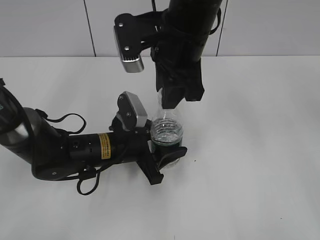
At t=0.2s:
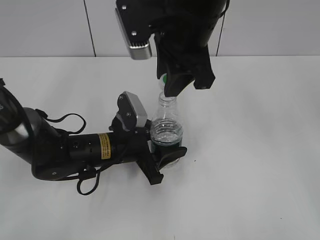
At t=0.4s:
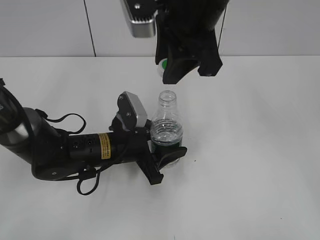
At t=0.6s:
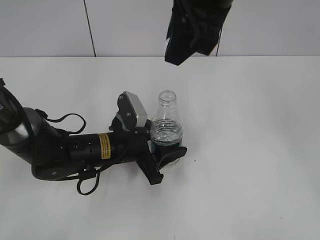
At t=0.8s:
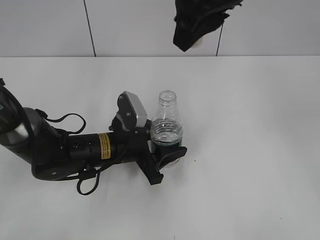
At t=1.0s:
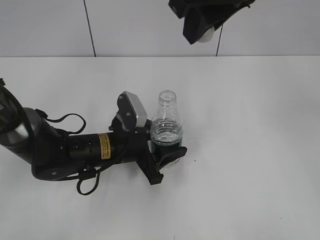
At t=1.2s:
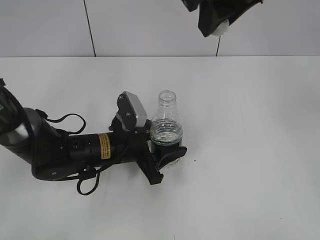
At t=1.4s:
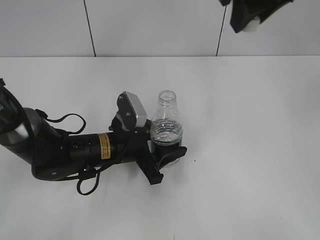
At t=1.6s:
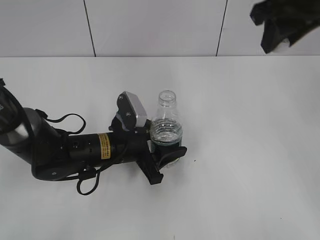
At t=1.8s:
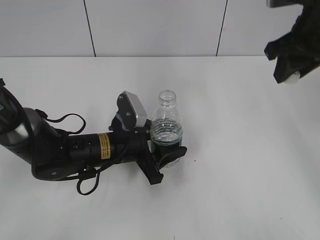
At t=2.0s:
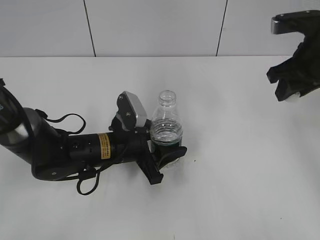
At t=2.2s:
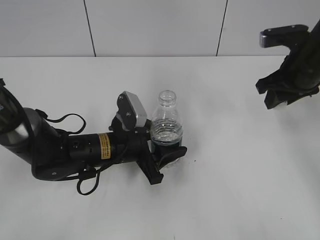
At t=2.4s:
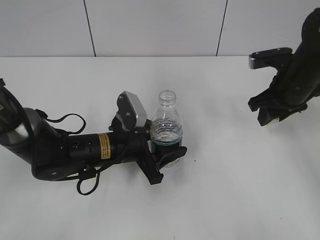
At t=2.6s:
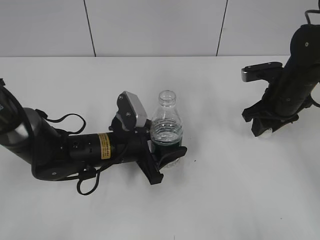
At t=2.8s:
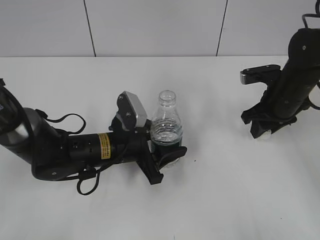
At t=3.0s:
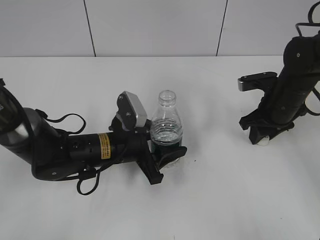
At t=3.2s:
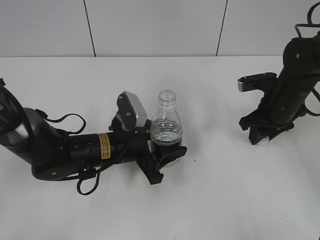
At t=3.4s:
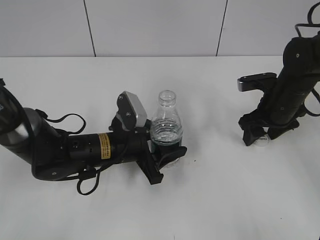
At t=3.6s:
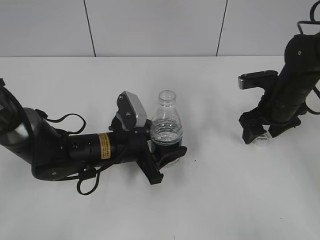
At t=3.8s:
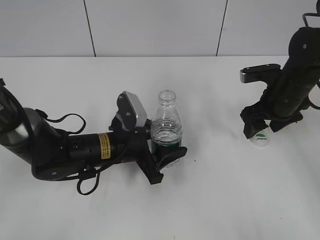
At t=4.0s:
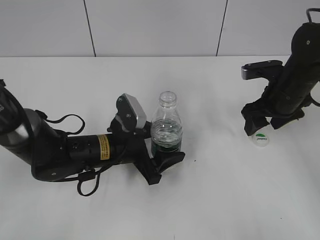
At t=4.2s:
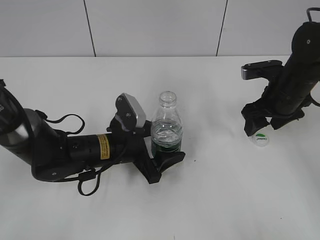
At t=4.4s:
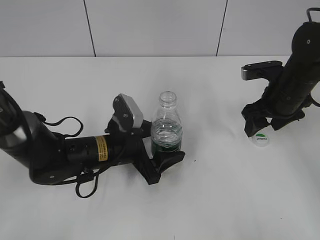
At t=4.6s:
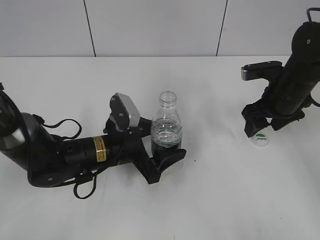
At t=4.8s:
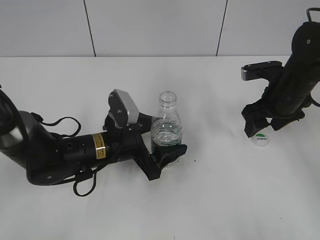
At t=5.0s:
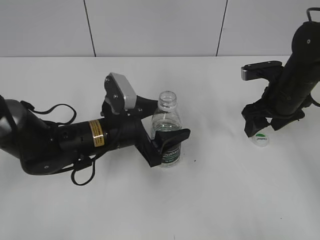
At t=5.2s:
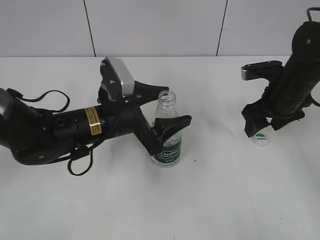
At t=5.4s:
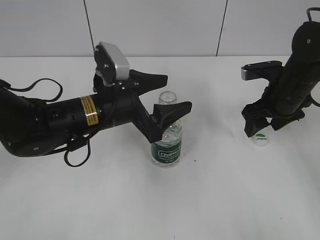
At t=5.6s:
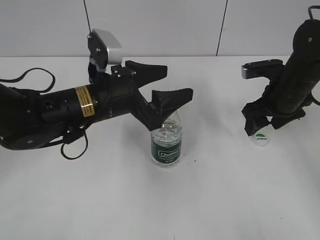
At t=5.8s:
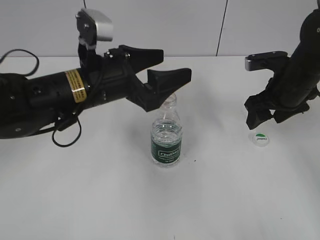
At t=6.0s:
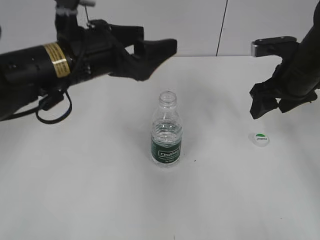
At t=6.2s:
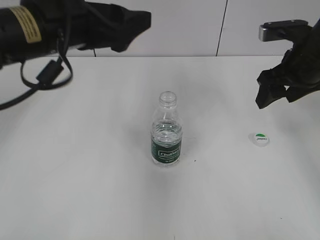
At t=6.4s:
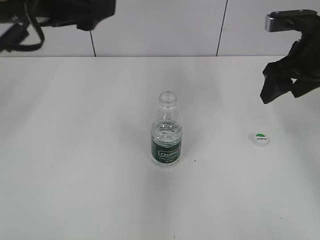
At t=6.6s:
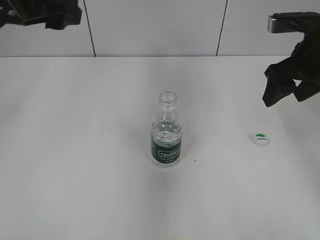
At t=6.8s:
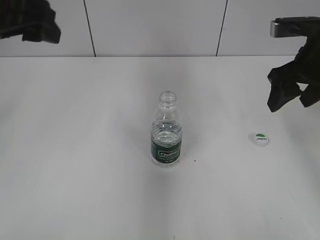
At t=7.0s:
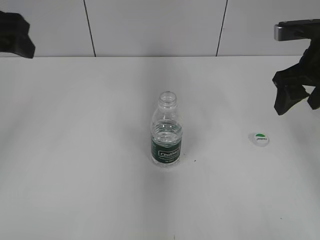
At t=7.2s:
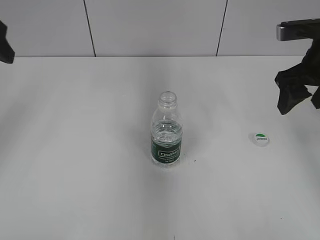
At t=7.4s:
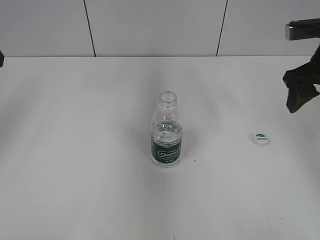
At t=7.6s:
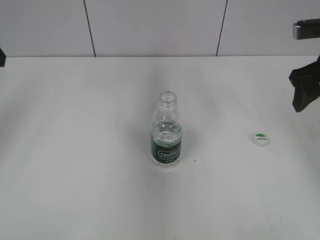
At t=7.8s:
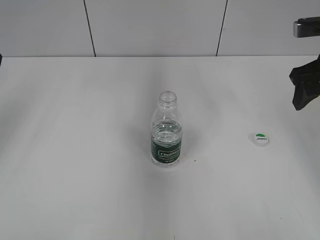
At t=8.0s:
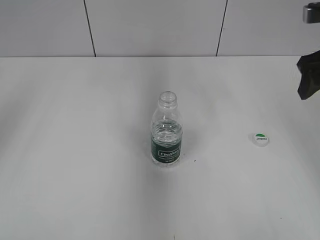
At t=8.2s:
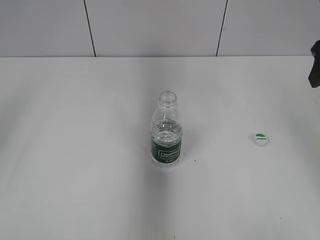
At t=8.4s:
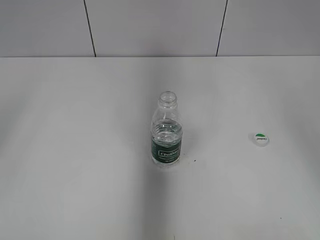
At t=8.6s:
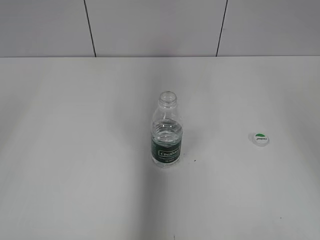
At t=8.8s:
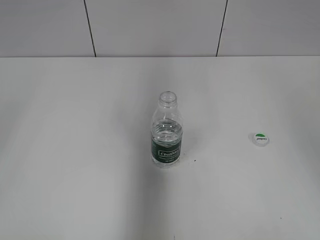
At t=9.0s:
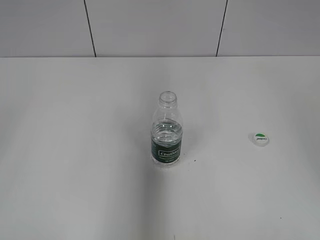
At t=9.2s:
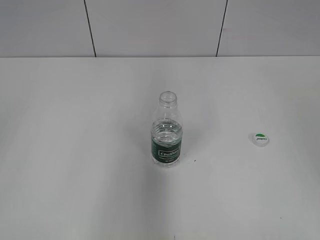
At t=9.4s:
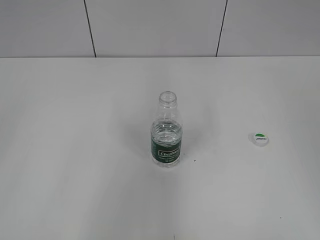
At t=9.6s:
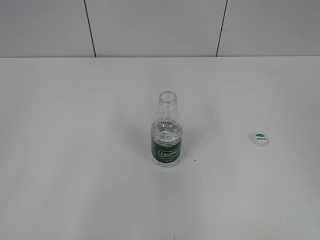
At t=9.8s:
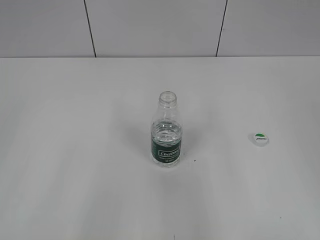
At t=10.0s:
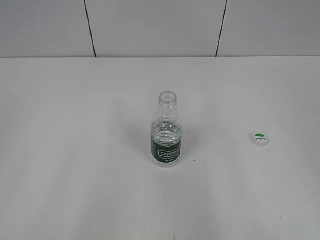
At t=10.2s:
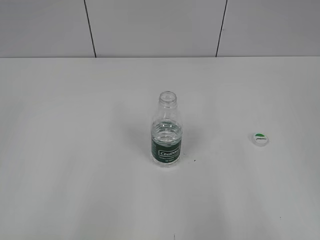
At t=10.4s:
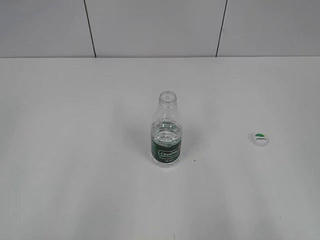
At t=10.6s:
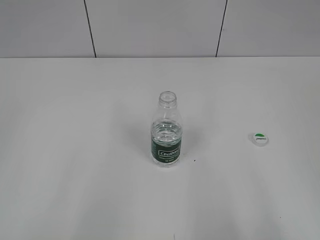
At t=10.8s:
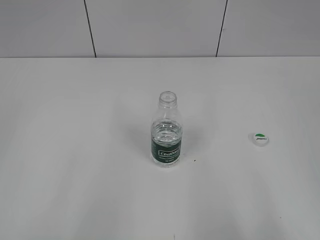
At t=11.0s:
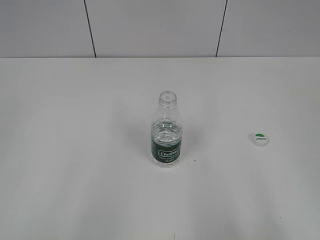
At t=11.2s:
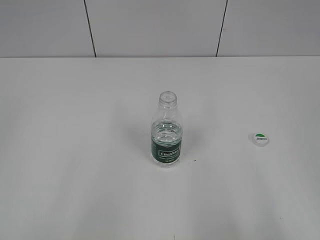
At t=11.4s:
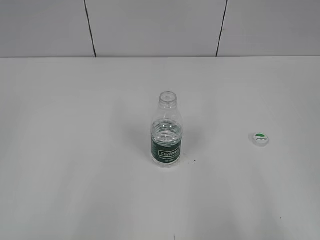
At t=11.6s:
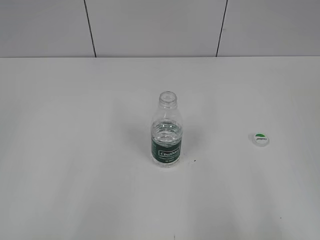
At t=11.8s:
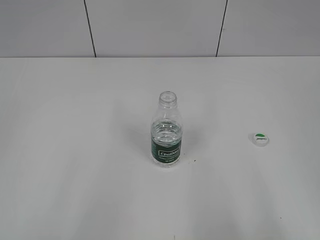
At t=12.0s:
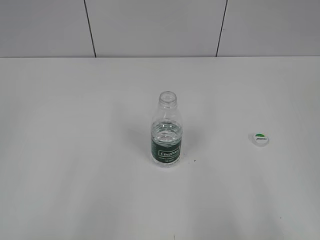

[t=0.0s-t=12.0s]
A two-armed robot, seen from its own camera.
Step, t=0.6s to t=3.8s: Place the bottle cap on the table with the right gripper.
Step, t=4.2s to t=5.2s: Place the bottle on the table with the left gripper.
t=0.0s to t=1.6s: The right gripper is displaced to the right and upward by approximately 15 cm.
t=1.6s to t=3.0s: The right gripper moves downward, some 25 cm.
t=3.0s to t=4.4s: The left gripper opens up; the right gripper opens up.
t=4.4s to t=6.0s: The right gripper is displaced upward by about 5 cm. The left gripper heads upward, covering some 20 cm.
t=6.0s to t=7.6s: The right gripper heads upward, covering roughly 5 cm; the left gripper goes approximately 20 cm to the left.
t=7.6s to t=9.0s: The left gripper goes roughly 25 cm backward; the right gripper moves upward and backward, about 20 cm.
t=9.0s to t=10.4s: The left gripper heads downward, covering roughly 10 cm, and closes up; the right gripper shifts some 20 cm backward.

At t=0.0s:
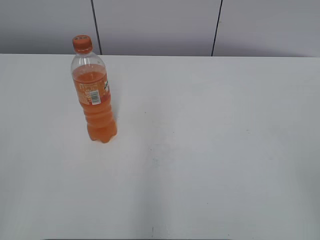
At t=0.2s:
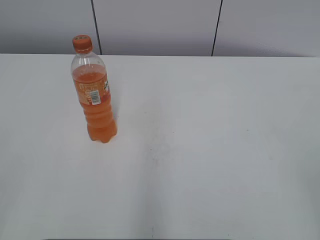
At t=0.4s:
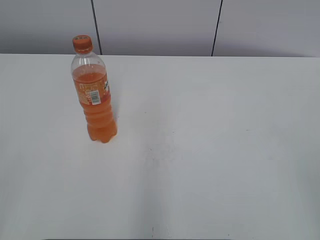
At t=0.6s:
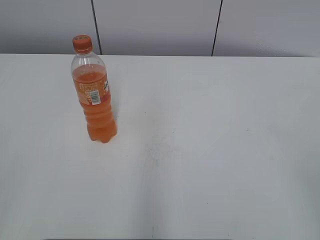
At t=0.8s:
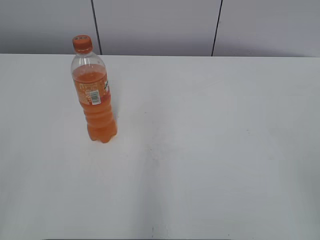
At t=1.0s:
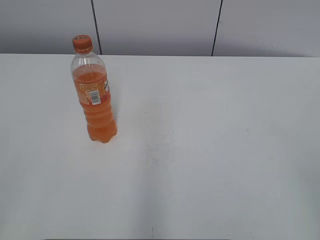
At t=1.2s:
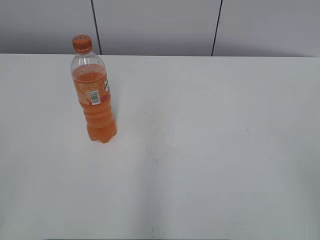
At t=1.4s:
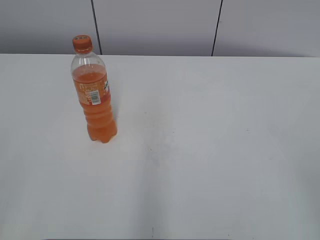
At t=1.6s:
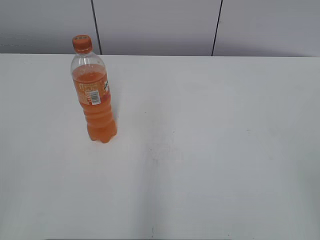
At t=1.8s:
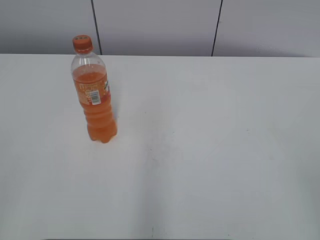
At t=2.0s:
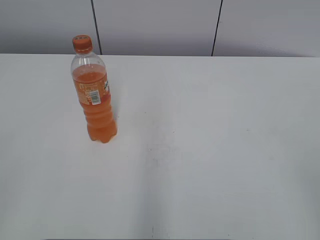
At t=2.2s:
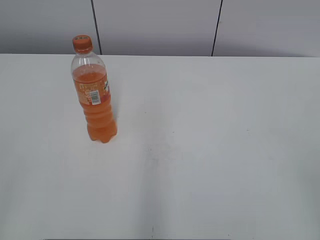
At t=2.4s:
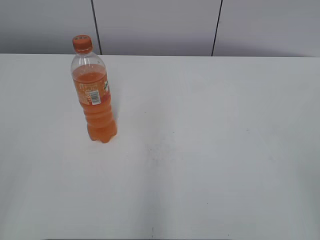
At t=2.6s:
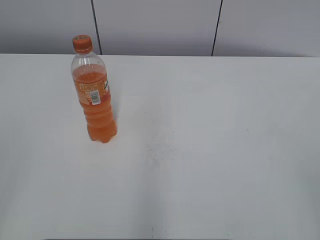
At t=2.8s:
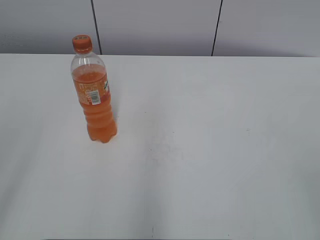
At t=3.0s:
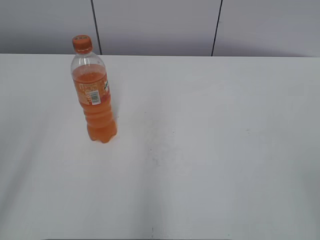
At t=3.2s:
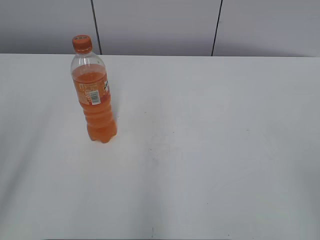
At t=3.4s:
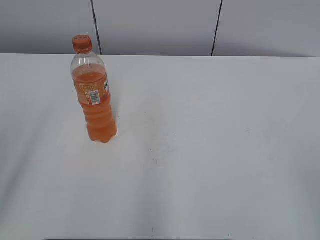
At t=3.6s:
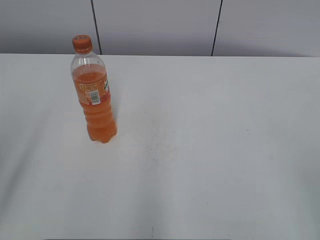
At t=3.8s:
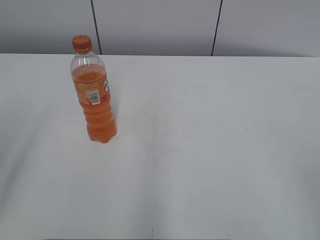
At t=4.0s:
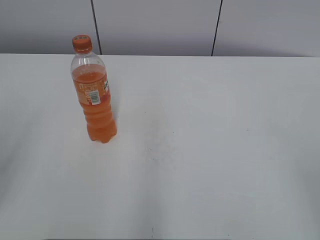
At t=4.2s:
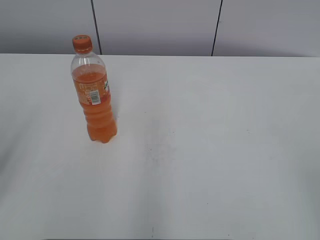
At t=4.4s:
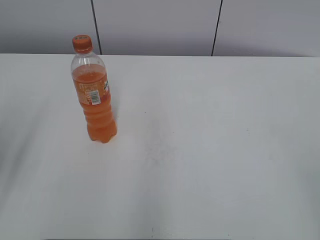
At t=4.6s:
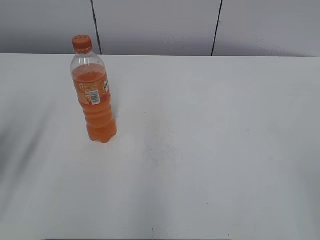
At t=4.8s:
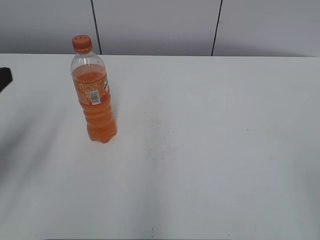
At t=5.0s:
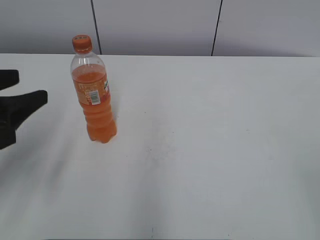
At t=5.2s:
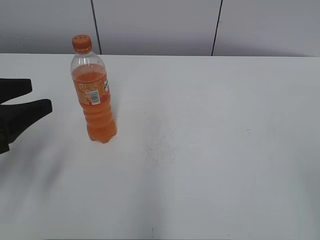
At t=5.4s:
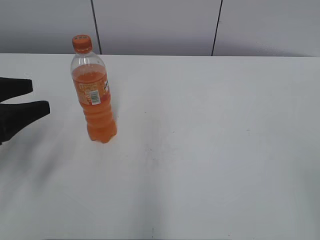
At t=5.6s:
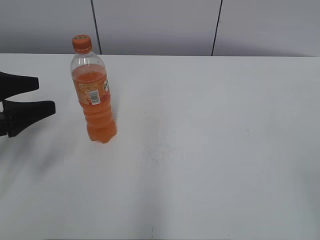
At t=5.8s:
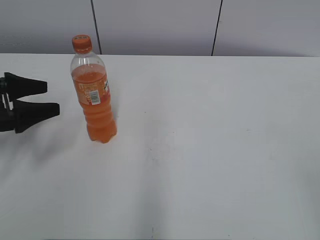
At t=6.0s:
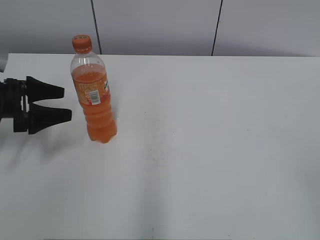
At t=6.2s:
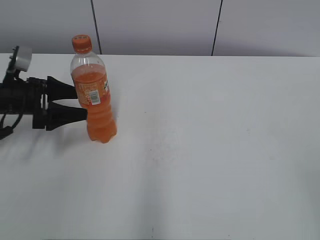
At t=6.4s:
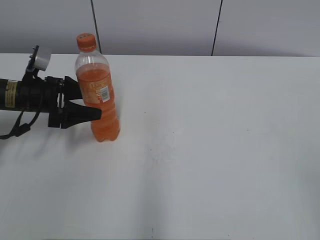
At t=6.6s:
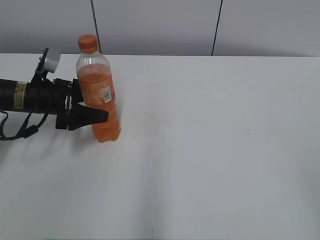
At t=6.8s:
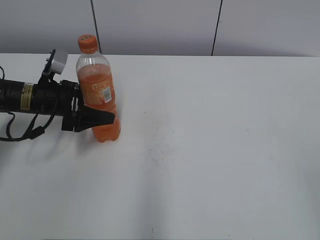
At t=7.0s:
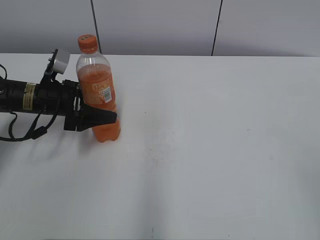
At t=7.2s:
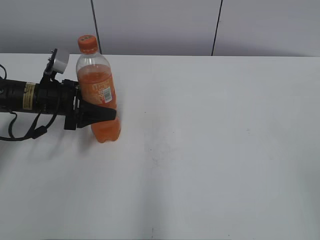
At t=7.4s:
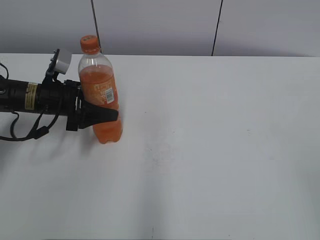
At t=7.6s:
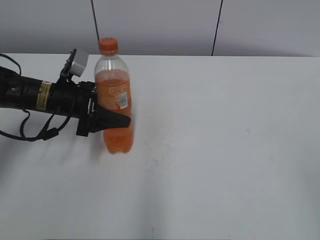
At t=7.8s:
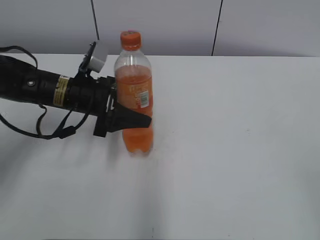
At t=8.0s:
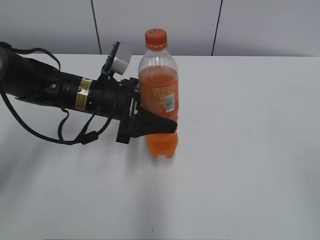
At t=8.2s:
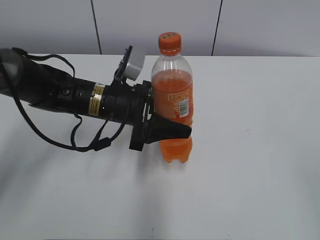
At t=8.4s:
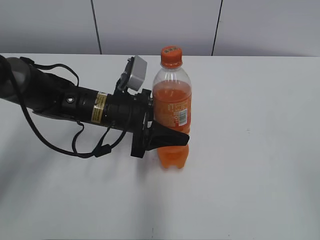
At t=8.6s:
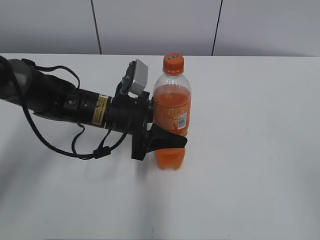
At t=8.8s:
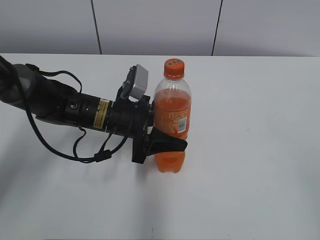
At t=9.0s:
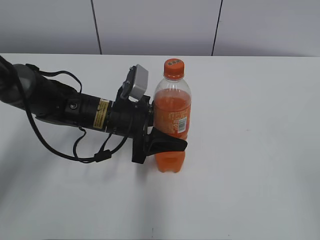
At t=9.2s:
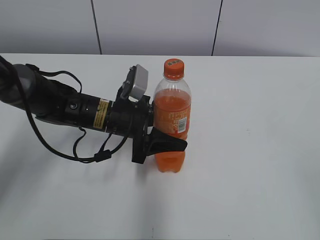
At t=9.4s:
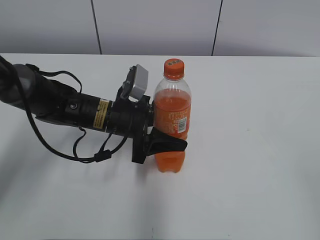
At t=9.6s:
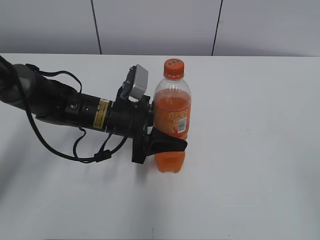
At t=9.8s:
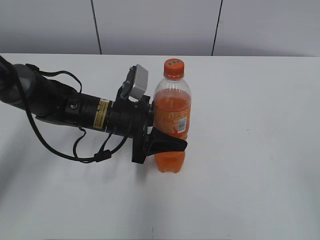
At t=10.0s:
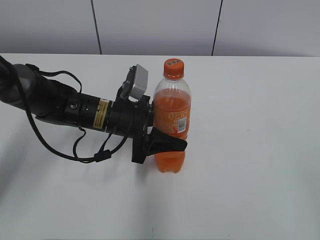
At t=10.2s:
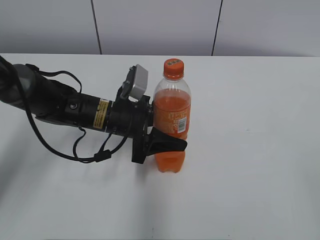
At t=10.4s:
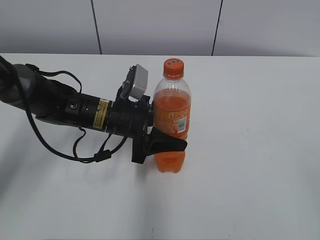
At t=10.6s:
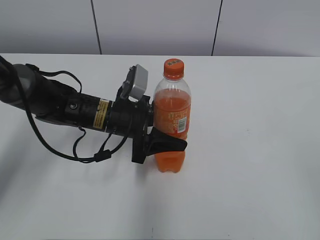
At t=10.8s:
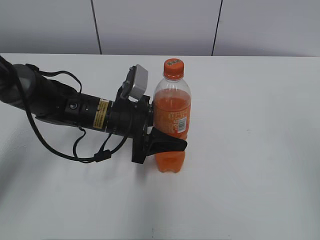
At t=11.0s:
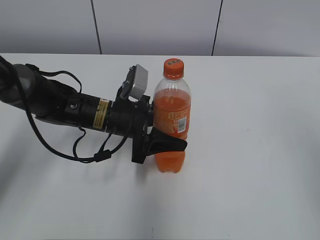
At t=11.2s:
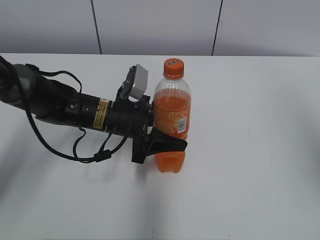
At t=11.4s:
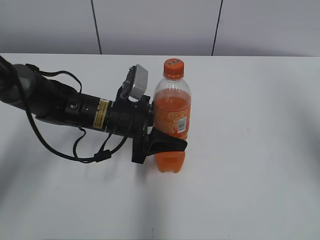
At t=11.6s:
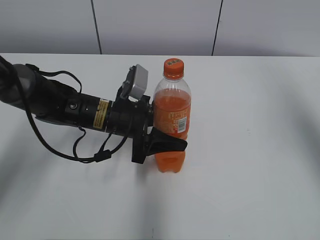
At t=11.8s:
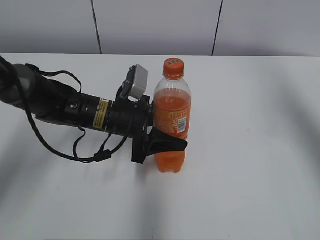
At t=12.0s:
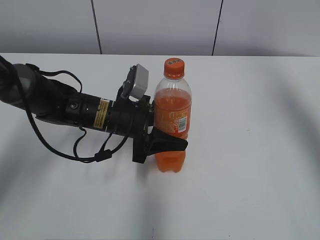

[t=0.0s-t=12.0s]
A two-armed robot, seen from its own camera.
Step, t=0.0s to t=7.0s: Grab the Mirinda with the left hand.
Step, t=7.2s to t=9.2s: Move the Mirinda from left to right.
t=4.4s to t=6.0s: The left gripper goes roughly 20 cm forward and downward, and opens up.
t=6.0s to t=7.6s: The left gripper shifts about 10 cm to the right, and closes up.
t=7.6s to t=9.0s: The left gripper heads to the right, covering some 10 cm.
t=9.0s to t=10.4s: Both grippers stay about where they are.
t=10.4s to t=12.0s: The right gripper goes some 35 cm forward.
